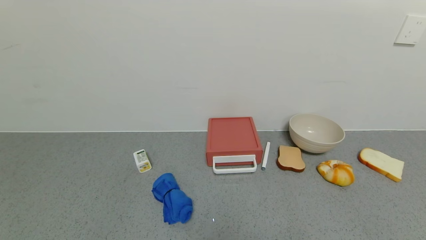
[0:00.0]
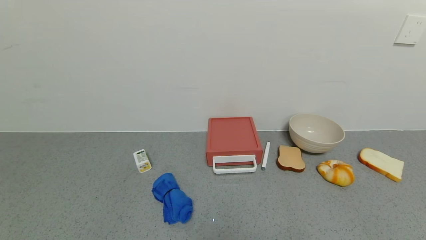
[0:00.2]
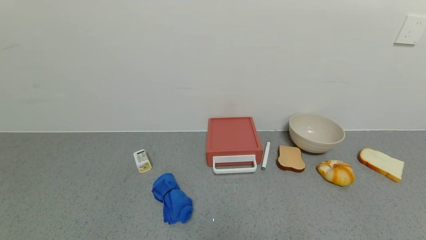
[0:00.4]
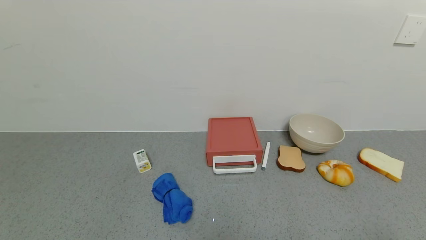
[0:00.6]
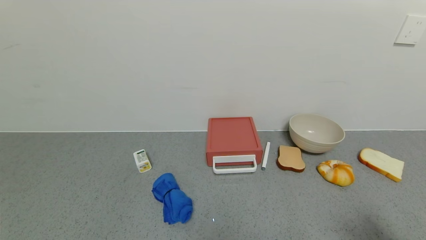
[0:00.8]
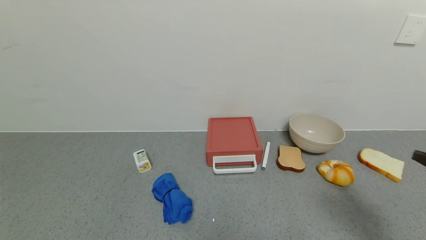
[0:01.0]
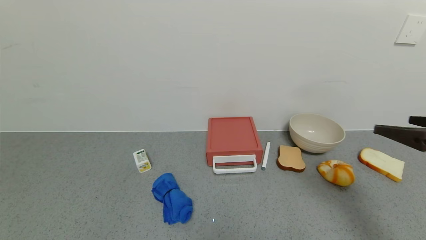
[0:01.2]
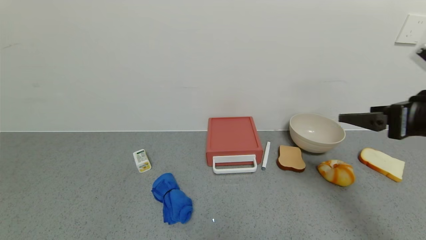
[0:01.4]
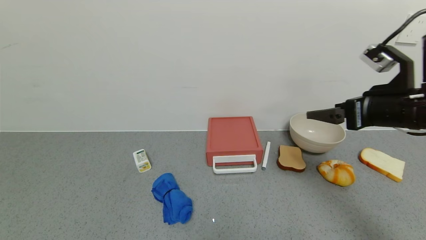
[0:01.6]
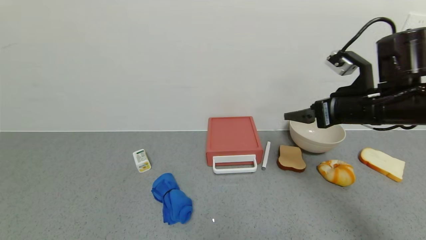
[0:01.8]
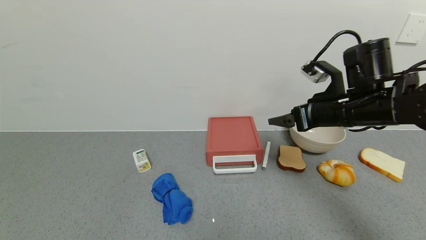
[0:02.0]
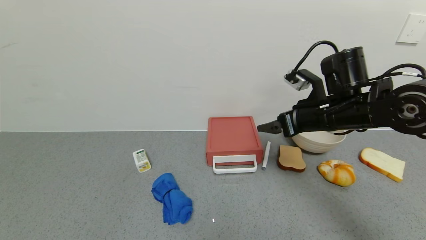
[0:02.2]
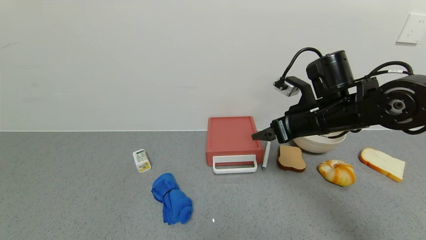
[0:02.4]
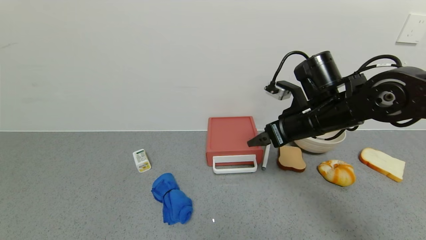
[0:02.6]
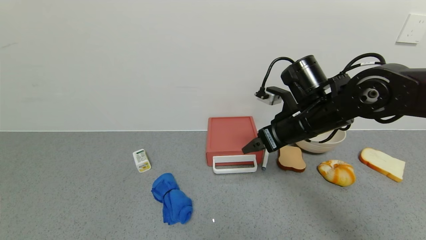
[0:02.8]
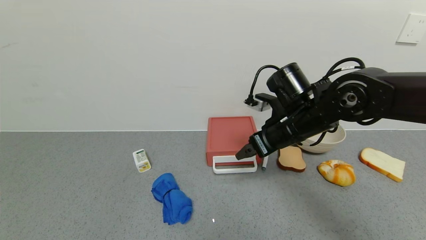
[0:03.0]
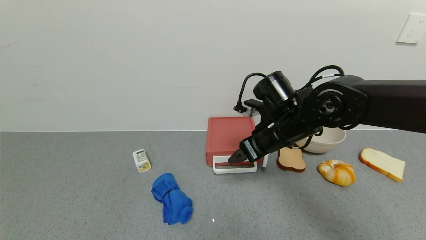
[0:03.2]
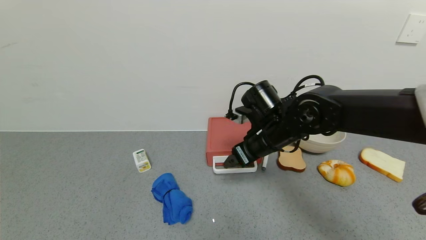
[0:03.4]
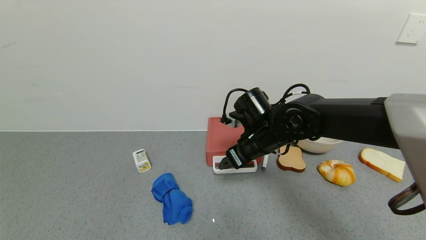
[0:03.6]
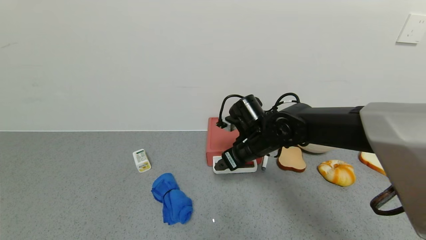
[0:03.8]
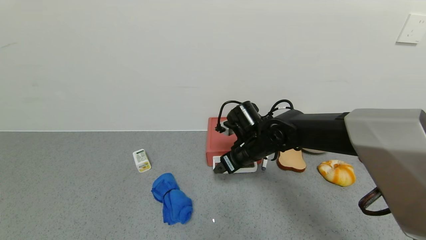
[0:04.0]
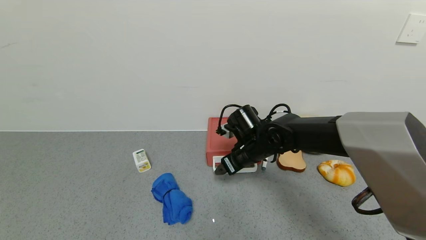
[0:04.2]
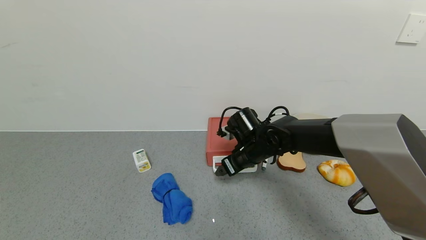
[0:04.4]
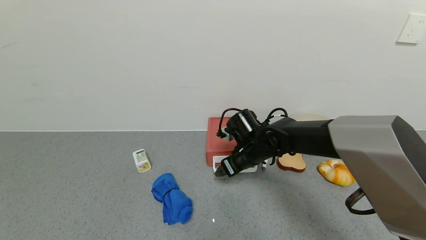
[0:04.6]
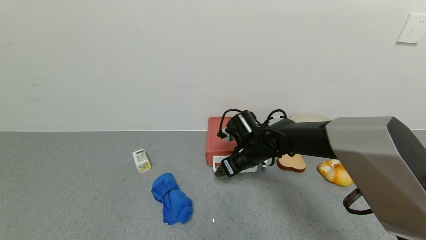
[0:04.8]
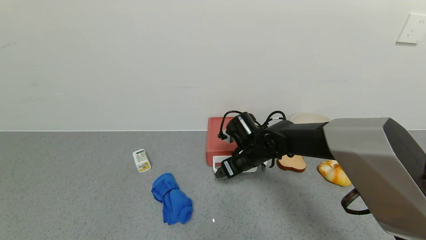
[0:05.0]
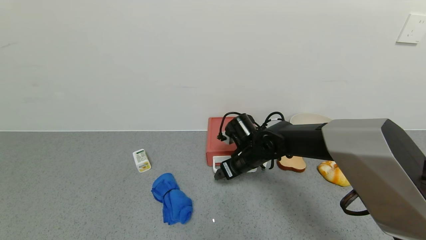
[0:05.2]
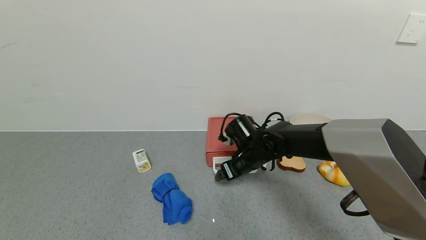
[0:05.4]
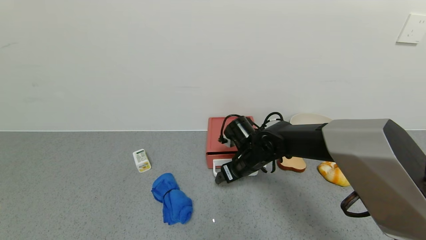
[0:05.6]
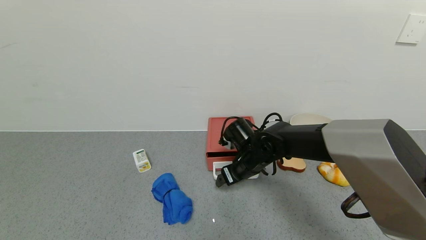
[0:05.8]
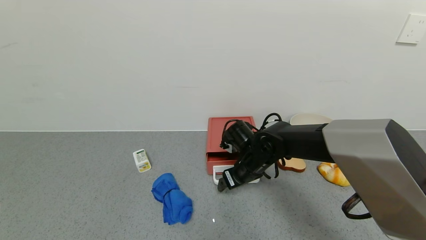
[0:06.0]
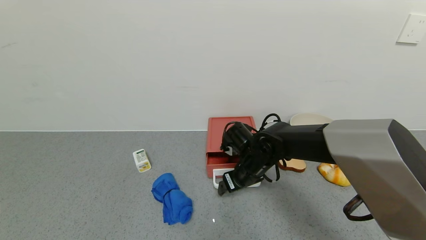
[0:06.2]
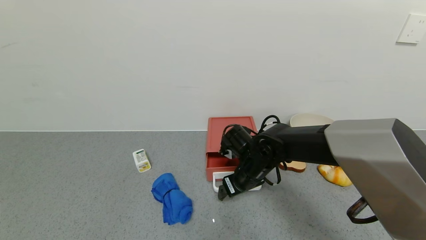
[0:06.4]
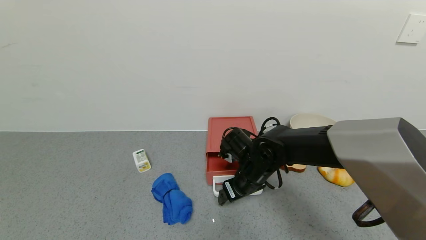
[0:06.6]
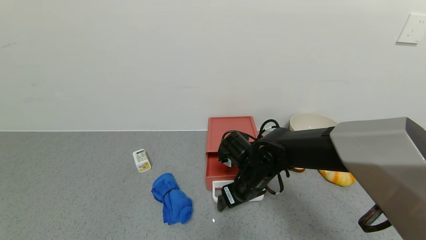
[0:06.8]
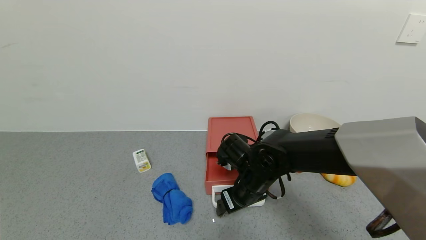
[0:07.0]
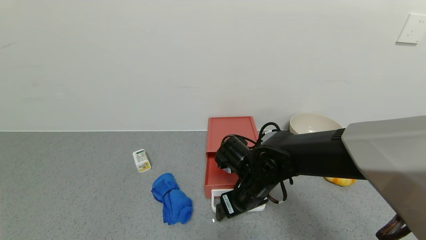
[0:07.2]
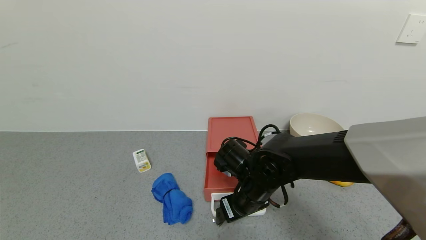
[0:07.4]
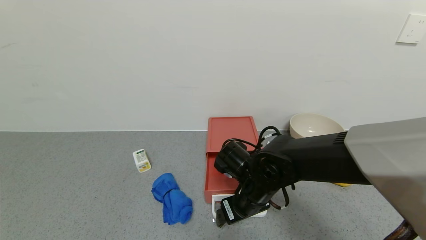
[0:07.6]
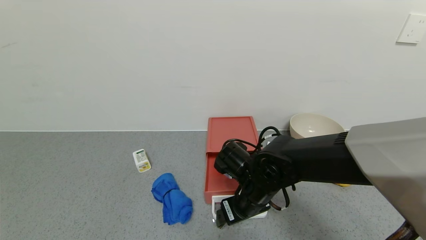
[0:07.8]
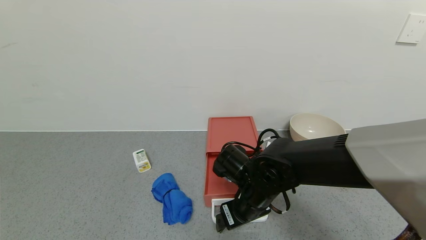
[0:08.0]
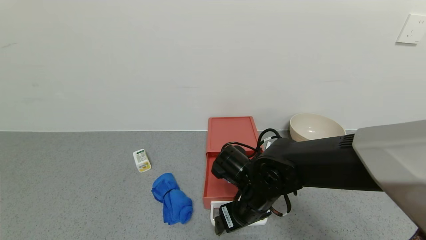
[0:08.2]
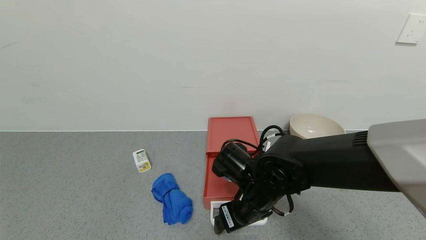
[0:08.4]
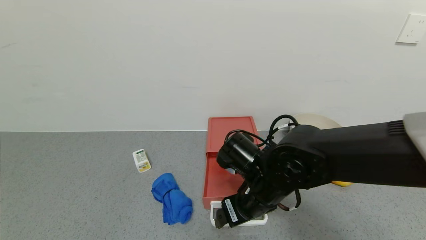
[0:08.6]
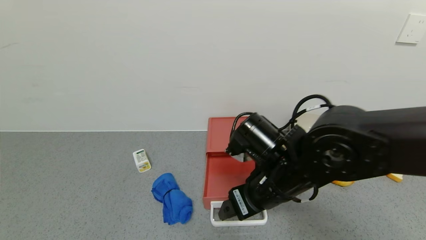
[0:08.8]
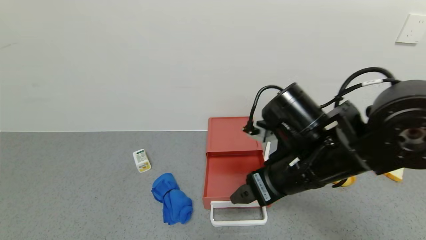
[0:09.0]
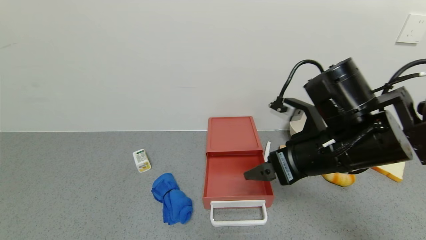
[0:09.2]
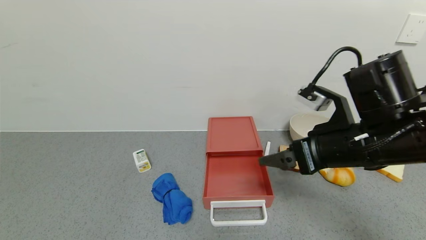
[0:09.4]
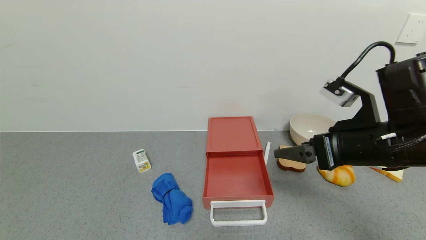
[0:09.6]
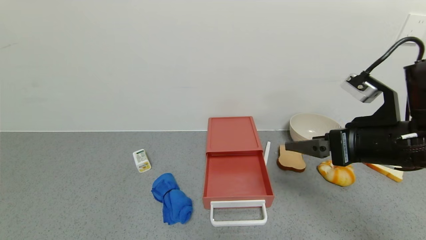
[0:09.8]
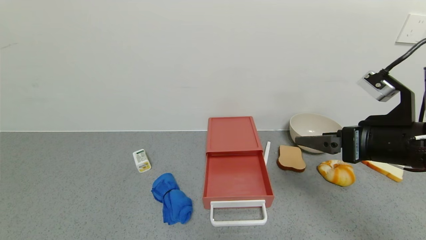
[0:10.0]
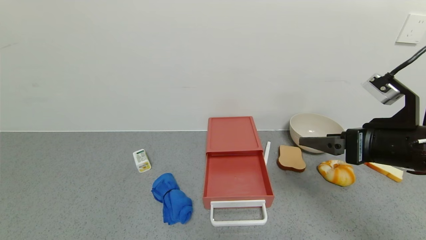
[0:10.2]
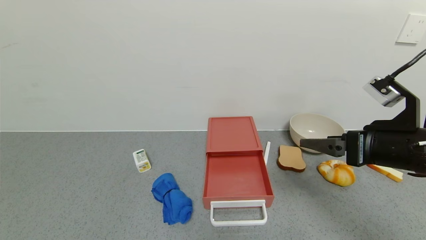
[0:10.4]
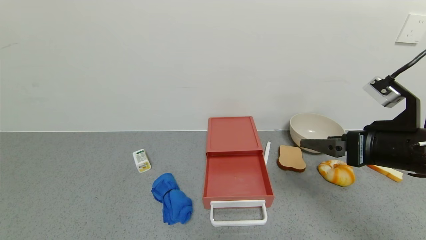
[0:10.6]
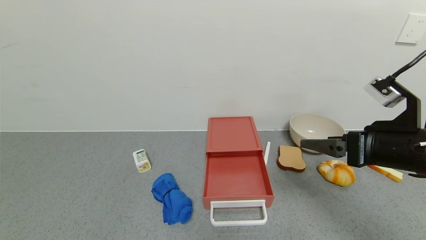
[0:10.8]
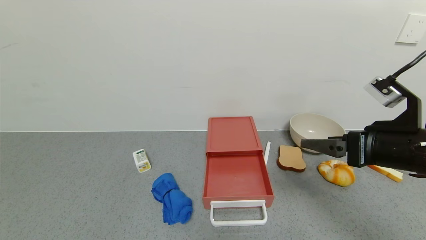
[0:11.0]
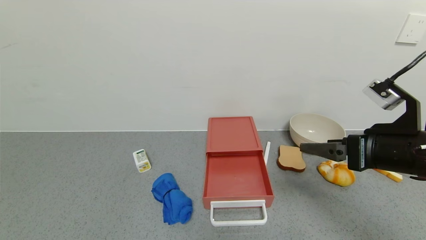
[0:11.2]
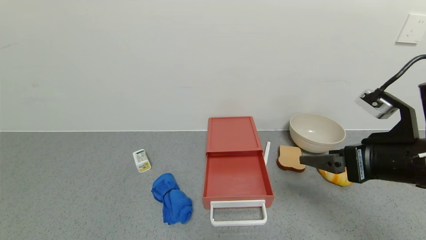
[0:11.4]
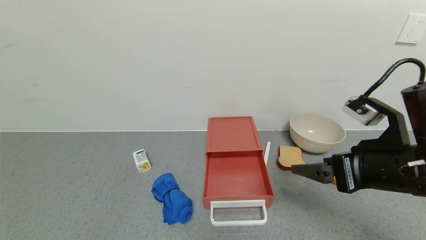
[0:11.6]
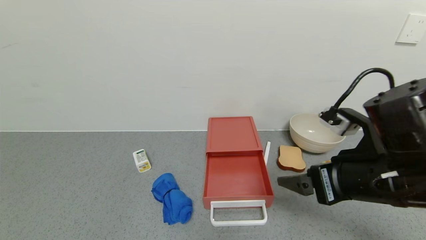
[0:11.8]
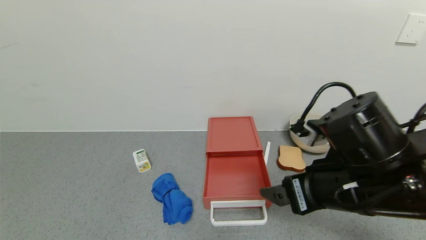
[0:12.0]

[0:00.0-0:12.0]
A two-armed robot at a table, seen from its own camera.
Task of the whole recording: use the gripper to open the drawer and close the red drawer.
Step, 0:00.0 to 0:08.8: Open the red drawer with the right gripper.
0:00.0 to 0:01.6: The right gripper is displaced forward by some 25 cm.
0:01.6 to 0:03.0: The right gripper moves to the left and downward, about 15 cm.
0:03.0 to 0:04.4: The right gripper travels downward, to the left and forward by about 15 cm.
0:04.4 to 0:06.0: The grippers stay close to where they were, moving slightly.
0:06.0 to 0:07.6: The right gripper travels backward by some 10 cm.
0:07.6 to 0:09.0: The right gripper is displaced upward and to the right by roughly 15 cm.
0:09.0 to 0:10.4: The right gripper moves to the right, about 15 cm.
0:10.4 to 0:12.0: The right gripper goes roughly 10 cm to the left.

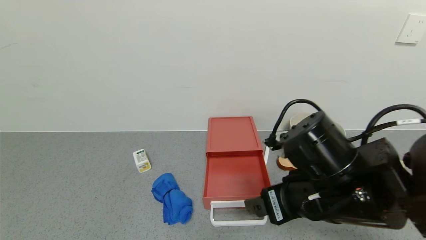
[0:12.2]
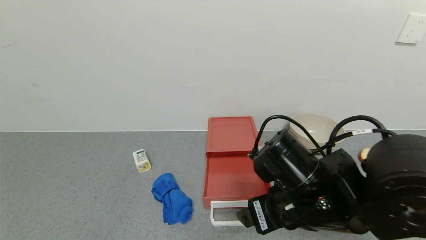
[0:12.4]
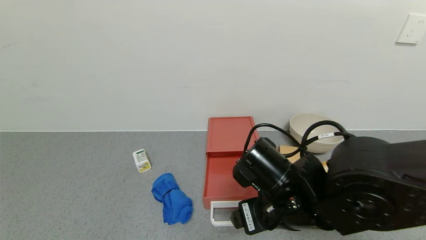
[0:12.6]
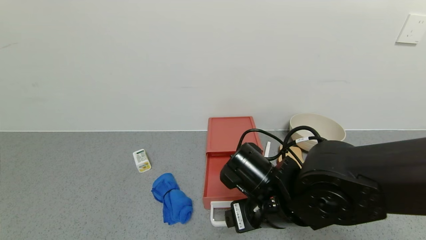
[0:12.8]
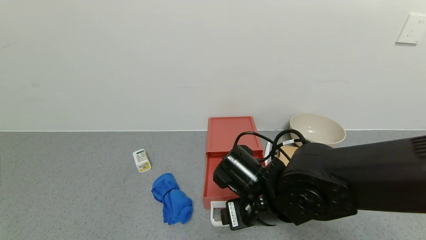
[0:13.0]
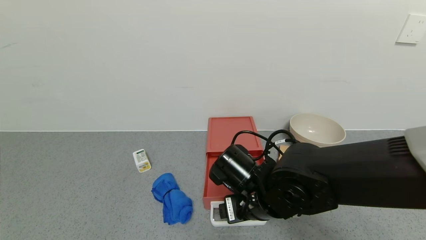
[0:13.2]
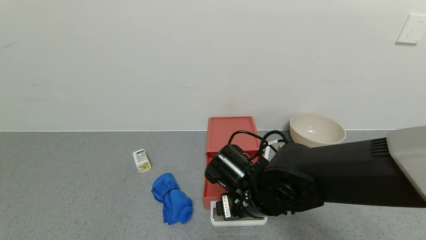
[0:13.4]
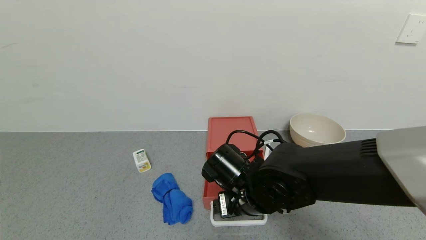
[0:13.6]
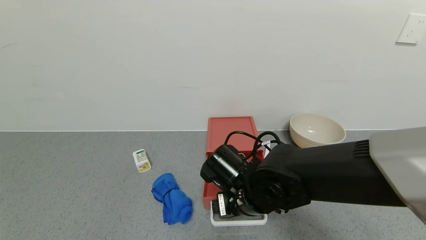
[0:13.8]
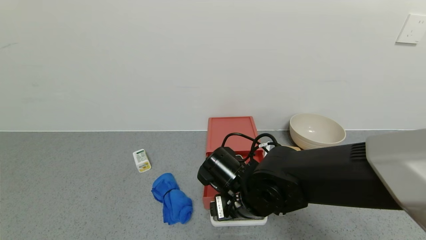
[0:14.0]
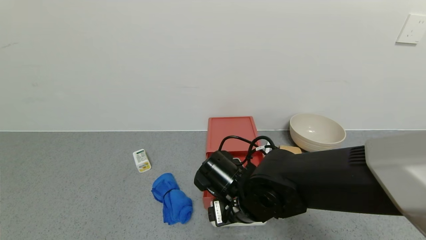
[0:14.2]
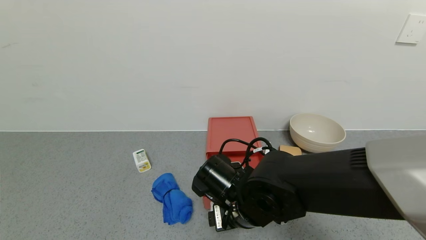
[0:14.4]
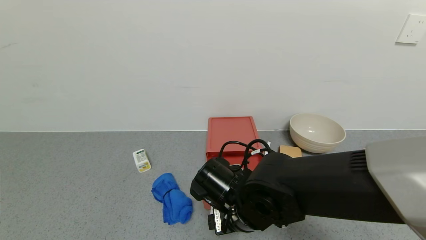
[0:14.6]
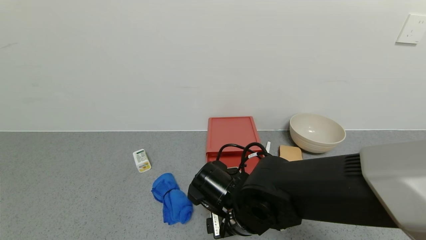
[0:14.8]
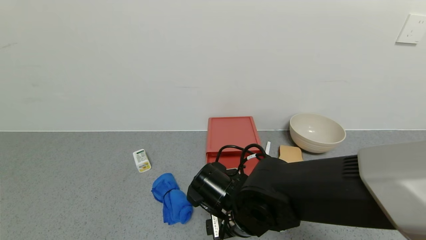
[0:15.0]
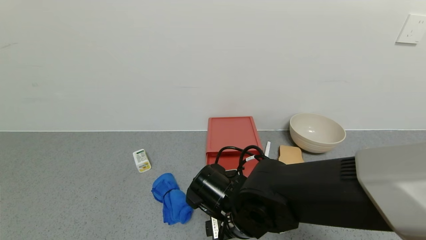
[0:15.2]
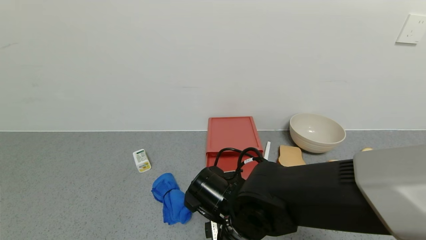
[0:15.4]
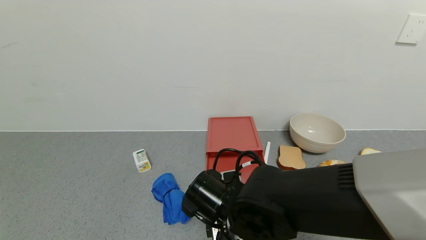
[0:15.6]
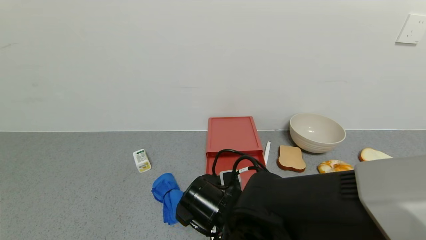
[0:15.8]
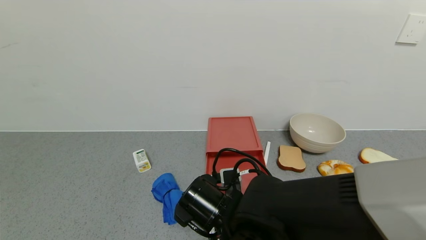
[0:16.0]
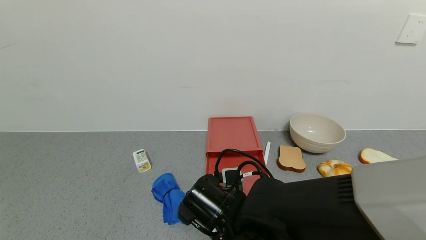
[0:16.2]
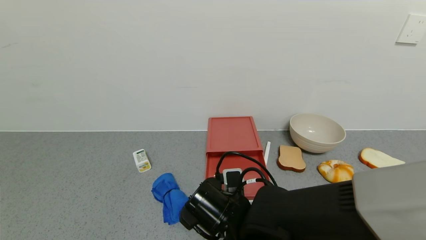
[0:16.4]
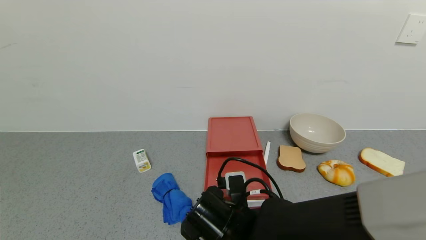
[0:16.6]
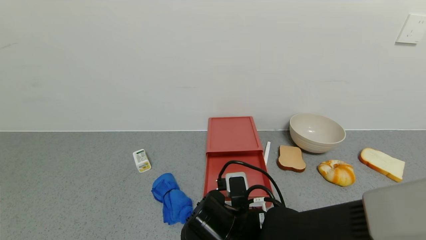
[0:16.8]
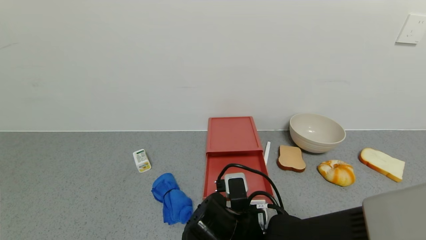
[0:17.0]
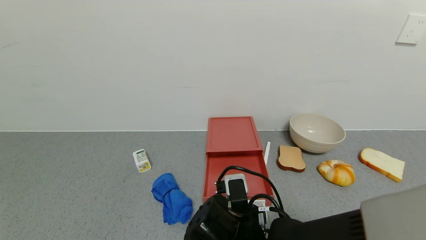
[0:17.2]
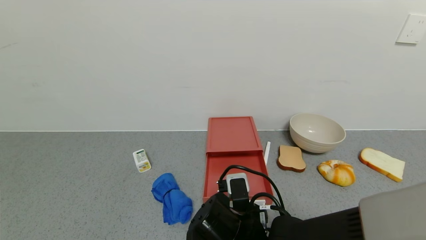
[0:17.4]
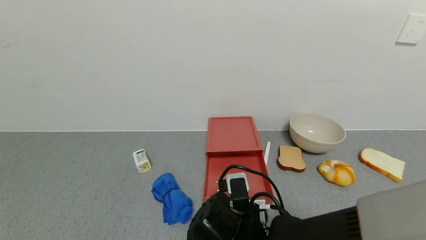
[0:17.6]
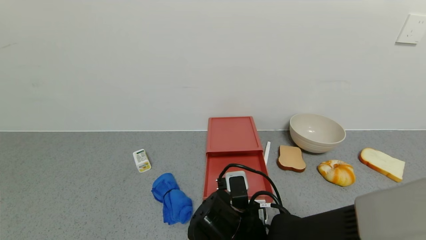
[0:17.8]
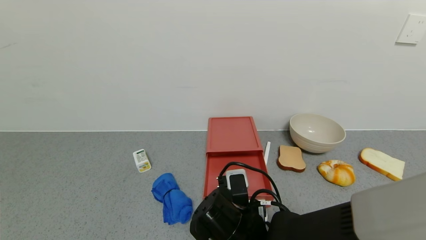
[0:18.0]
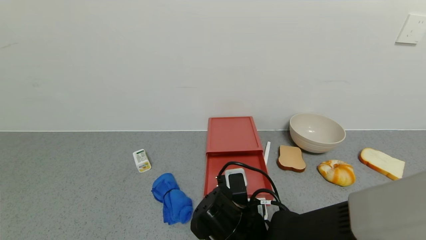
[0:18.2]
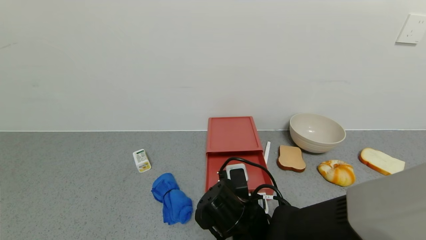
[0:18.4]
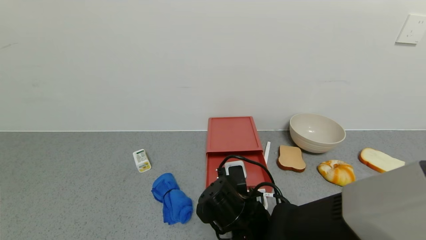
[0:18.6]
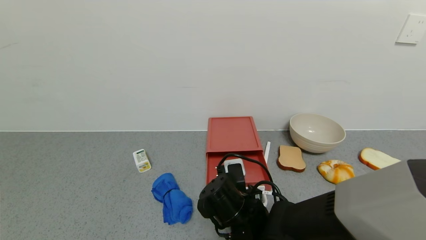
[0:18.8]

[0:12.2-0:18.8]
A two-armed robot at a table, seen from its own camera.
Task of the whole recording: use the gripper to open the drawer and close the red drawer.
0:12.2 to 0:13.8: The right gripper travels to the left, downward and forward by some 15 cm.
0:13.8 to 0:15.4: There are only small adjustments of the grippers.
0:17.2 to 0:18.8: The grippers move only a little.
